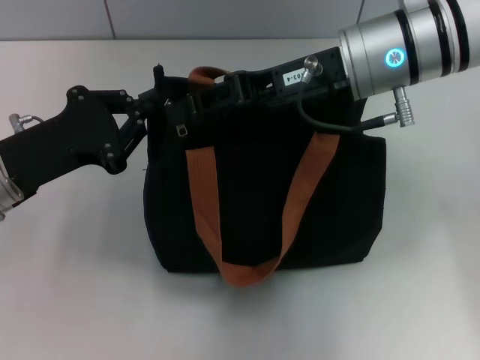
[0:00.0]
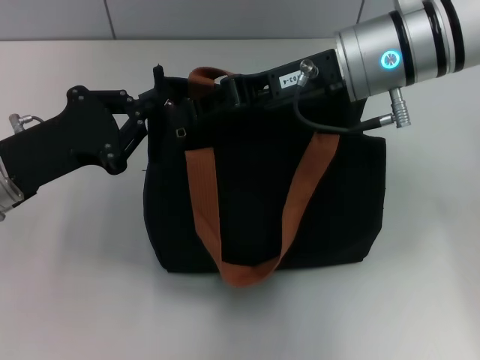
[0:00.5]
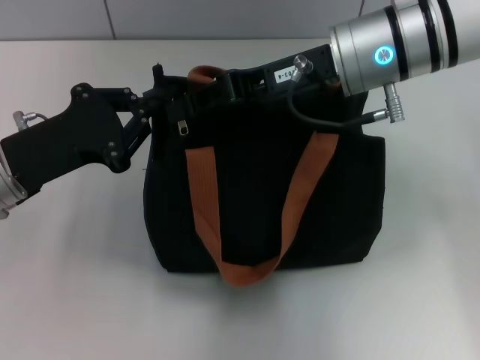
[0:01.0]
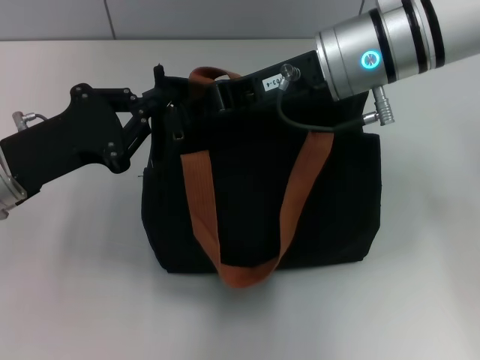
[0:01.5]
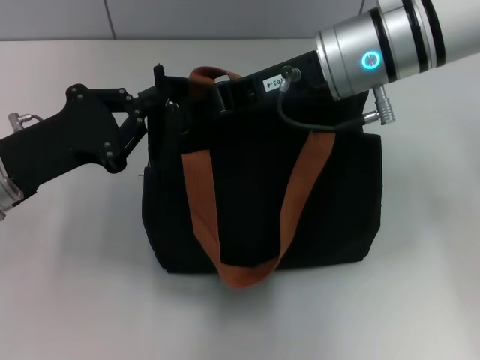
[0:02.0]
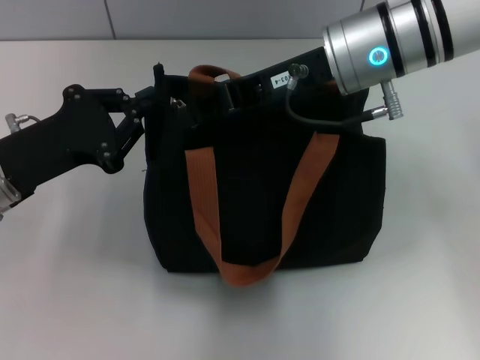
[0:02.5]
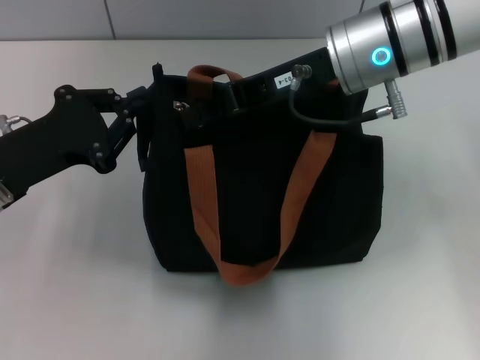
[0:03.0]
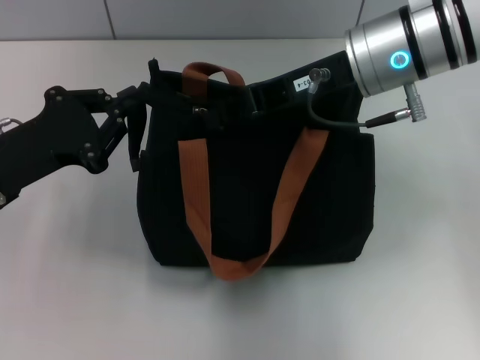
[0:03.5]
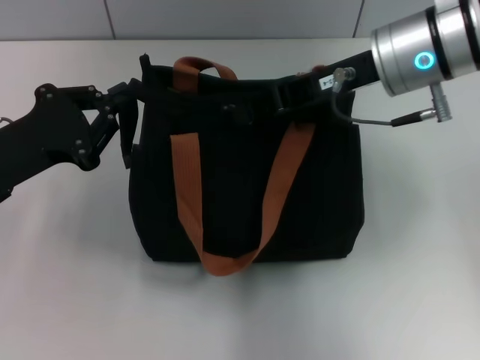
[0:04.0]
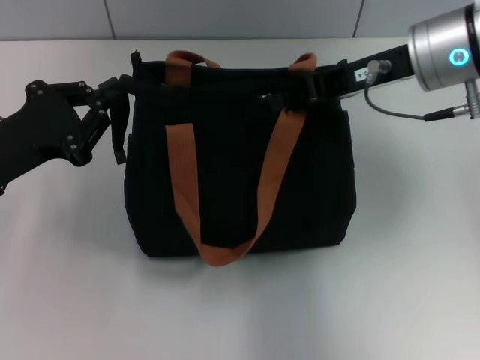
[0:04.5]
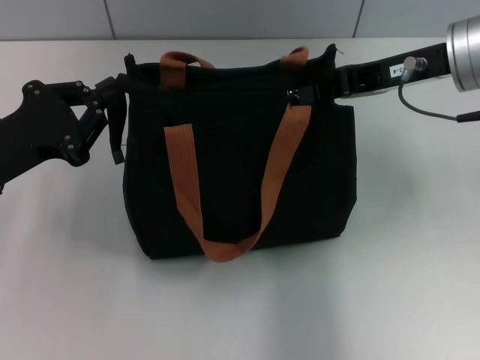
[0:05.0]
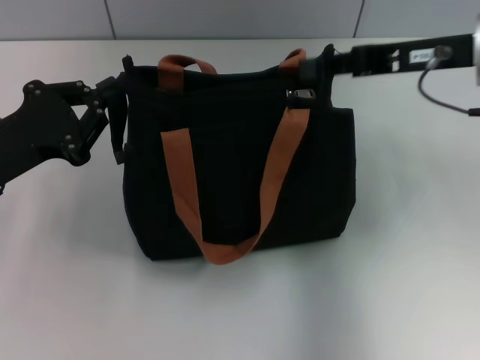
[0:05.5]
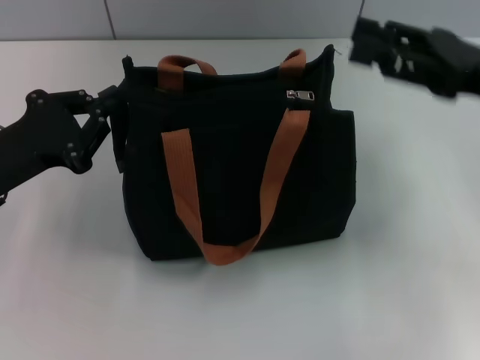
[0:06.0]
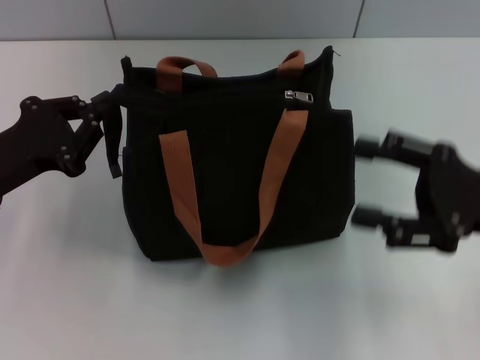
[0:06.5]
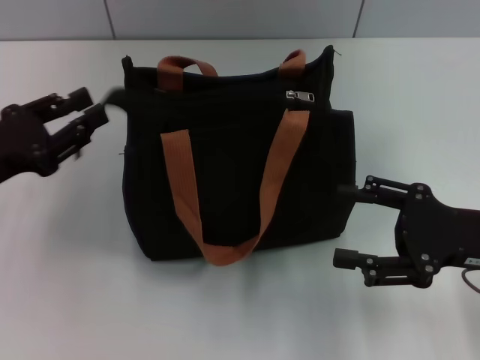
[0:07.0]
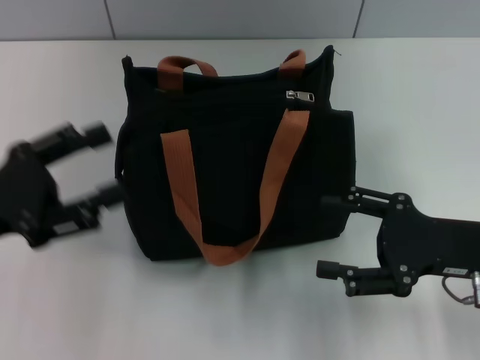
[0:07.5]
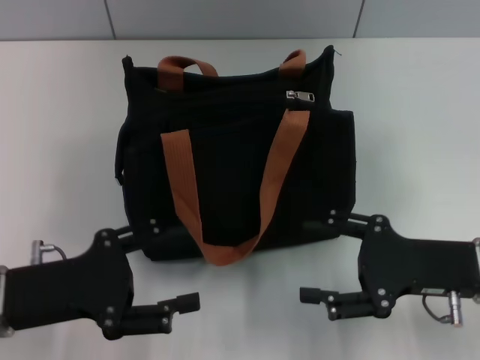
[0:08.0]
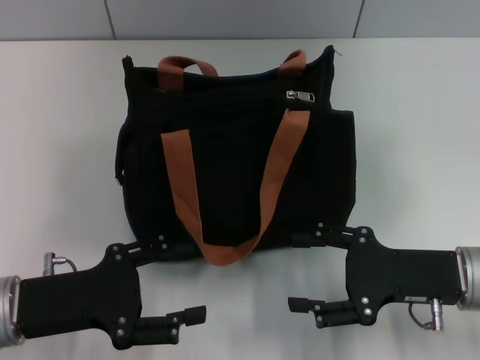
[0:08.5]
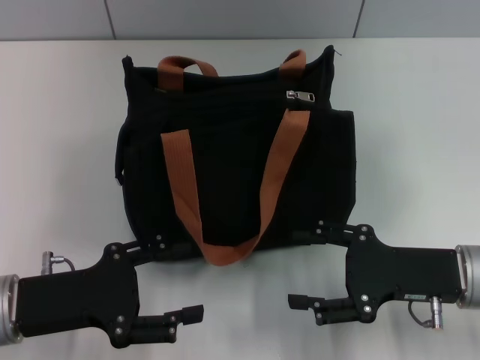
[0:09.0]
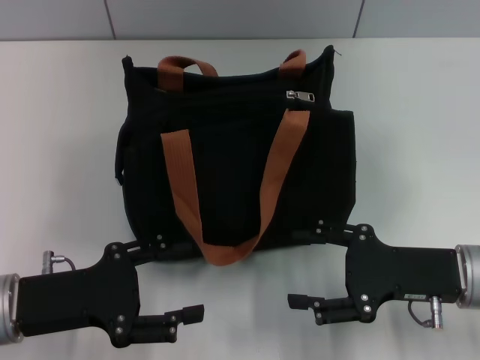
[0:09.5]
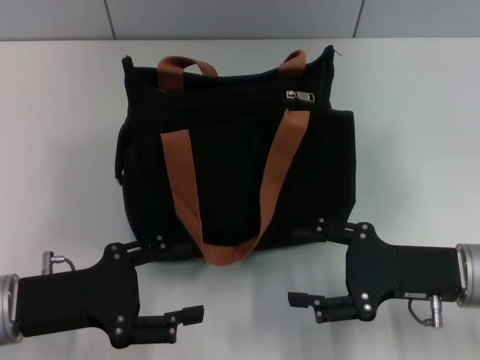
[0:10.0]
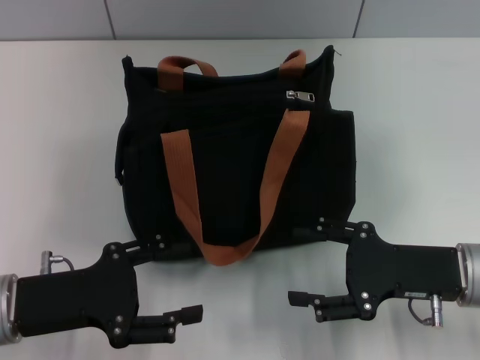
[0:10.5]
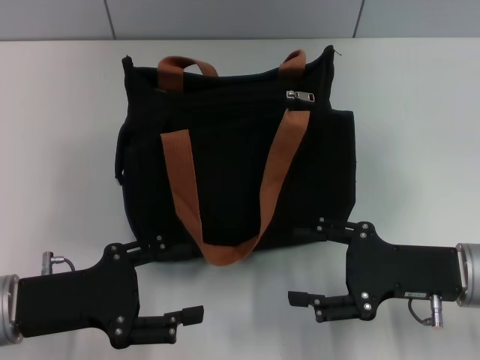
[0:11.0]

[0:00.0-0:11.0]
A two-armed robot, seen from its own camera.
Step, 0:00.0 to 0:05.0: Pull up the zipper with your right hand.
Step, 0:06.0 to 0:07.0: Grab the zipper with your left hand.
0:00.0 to 0:02.0: The right gripper closes its fingers.
0:02.0 to 0:03.5: The grippers stay close to where they were, moving slightly.
0:03.5 to 0:05.5: The right gripper travels to the right by about 10 cm.
0:05.5 to 0:07.5: The right gripper is displaced downward and backward by some 15 cm, and opens up. Meanwhile the left gripper opens.
0:07.5 to 0:09.0: The left gripper travels downward by approximately 5 cm.
0:09.0 to 0:11.0: Both grippers stay put.
